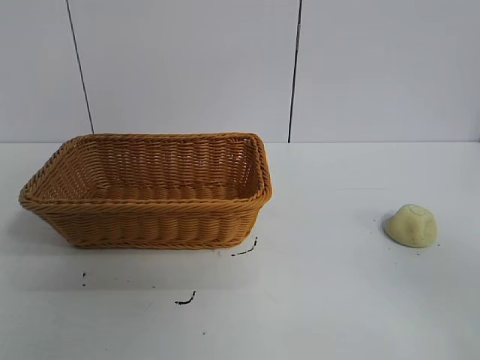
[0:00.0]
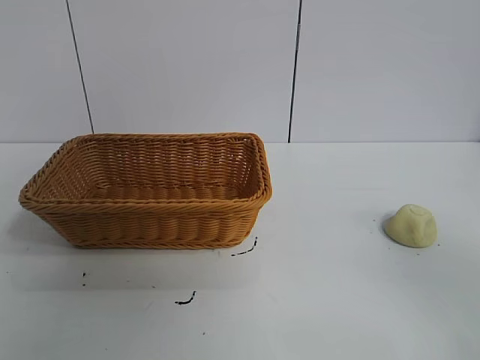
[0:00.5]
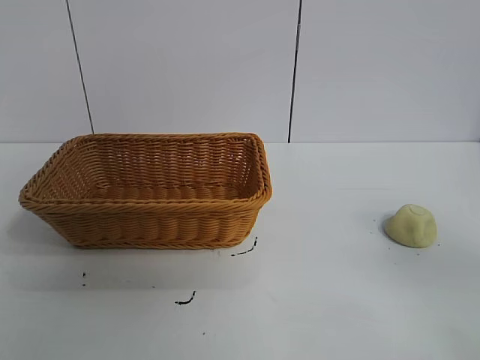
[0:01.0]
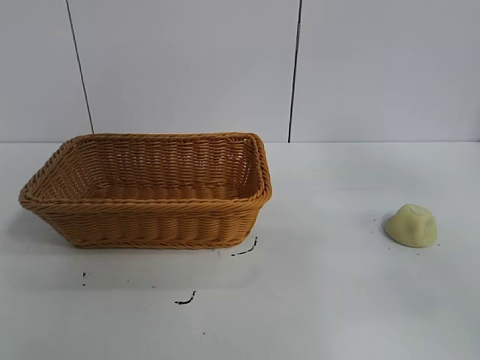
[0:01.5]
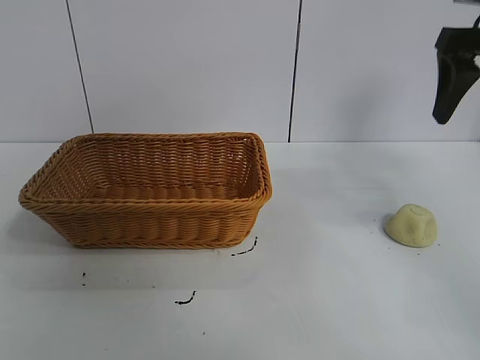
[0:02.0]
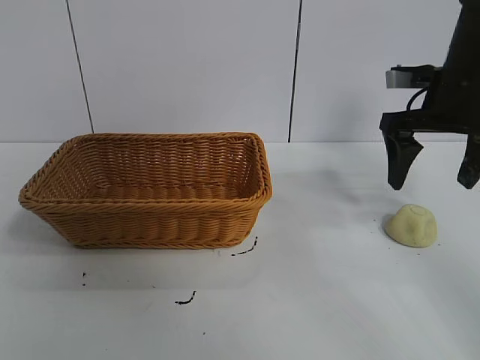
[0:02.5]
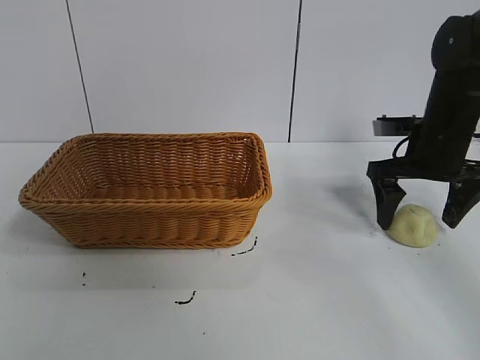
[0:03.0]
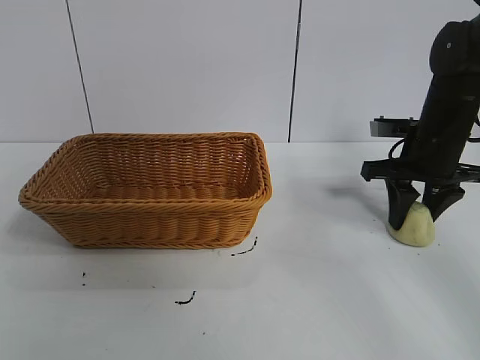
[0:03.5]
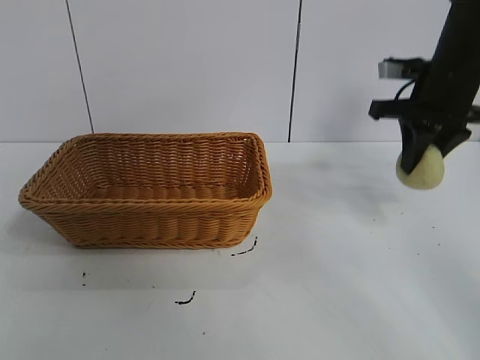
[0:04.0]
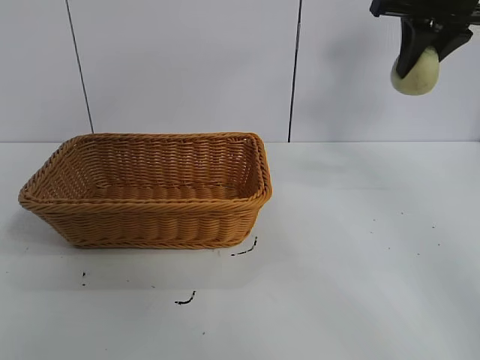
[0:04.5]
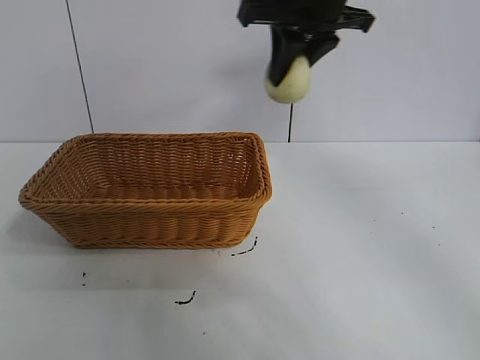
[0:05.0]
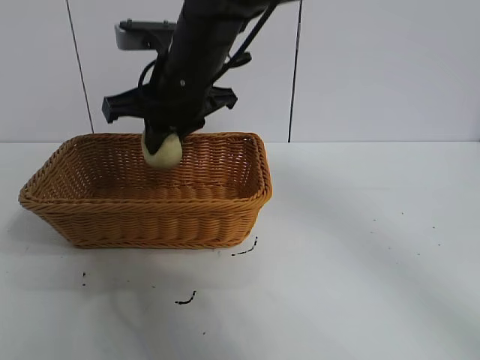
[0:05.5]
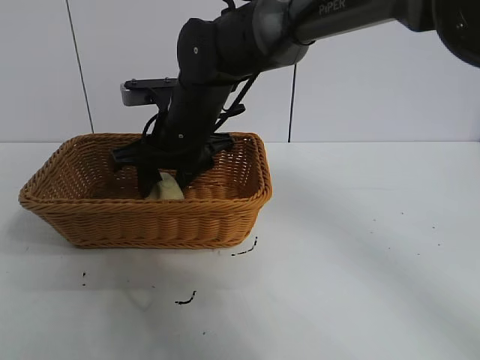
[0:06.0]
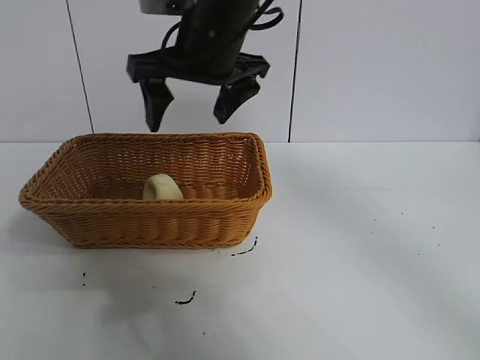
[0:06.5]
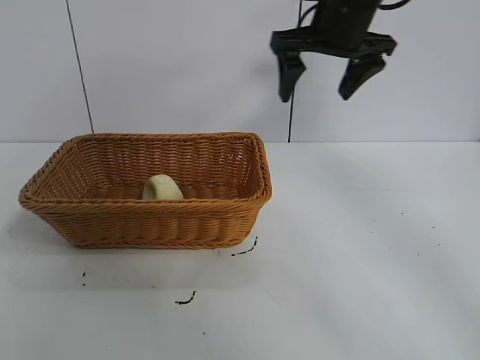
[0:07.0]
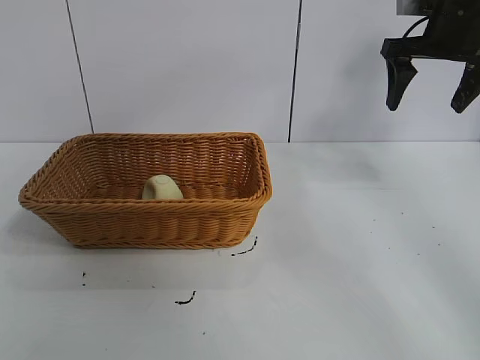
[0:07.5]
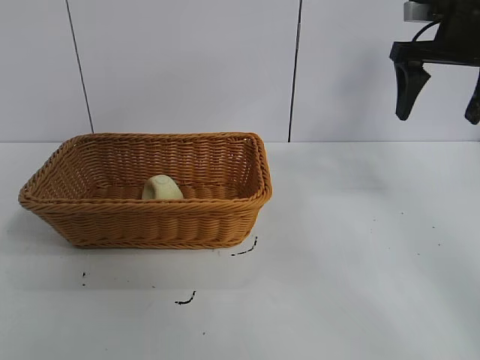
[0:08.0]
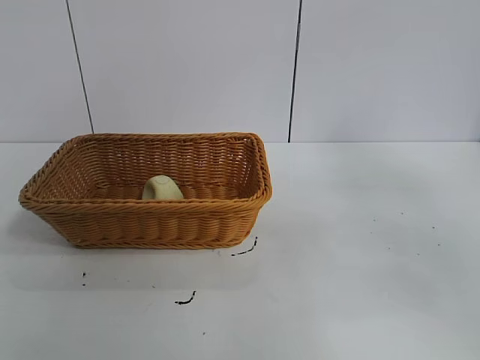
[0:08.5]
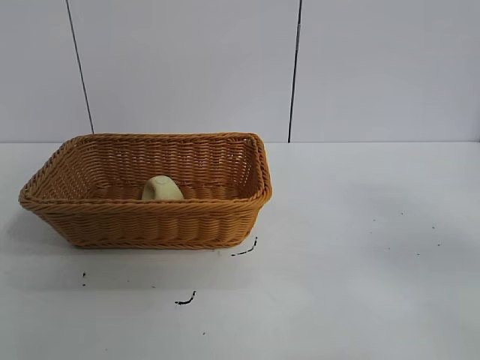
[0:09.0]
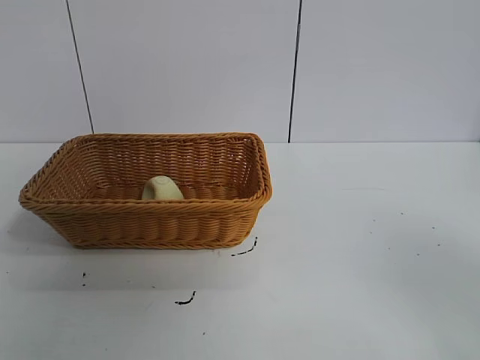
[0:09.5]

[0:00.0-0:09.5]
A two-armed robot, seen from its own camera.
Task of the whole recording: pick up the egg yolk pastry and put it into the basket.
Step, 0:01.0 to 0:03.5: Grasp egg yolk pastry with right gripper.
Step, 0:04.0 to 0:06.0: Place the egg yolk pastry in the basket with right gripper.

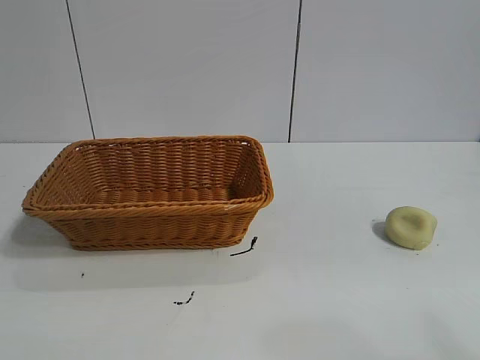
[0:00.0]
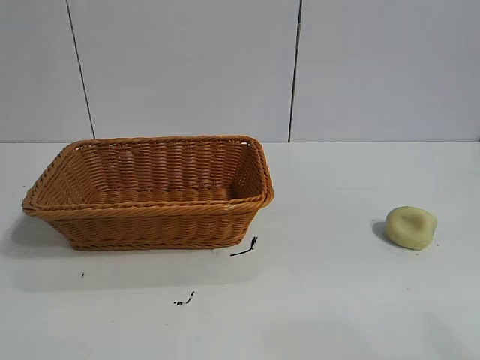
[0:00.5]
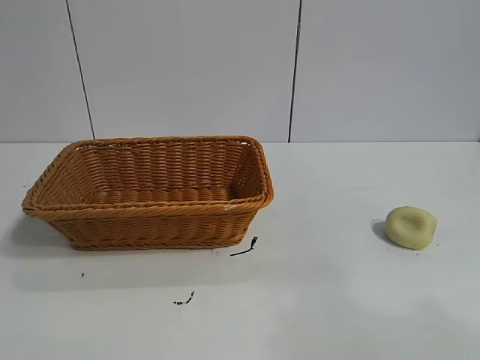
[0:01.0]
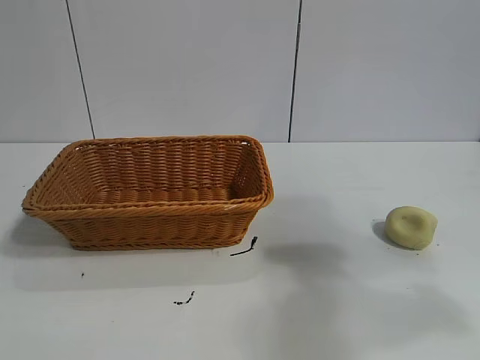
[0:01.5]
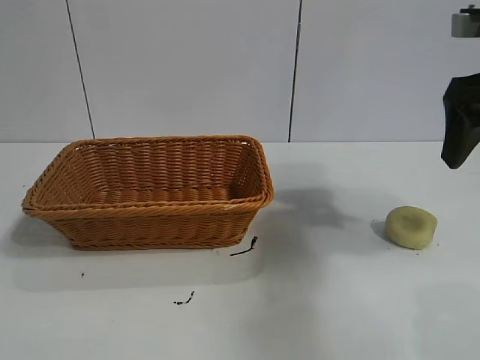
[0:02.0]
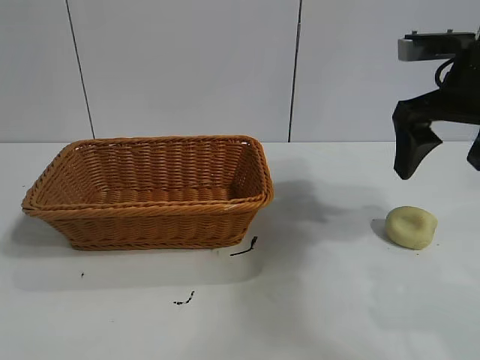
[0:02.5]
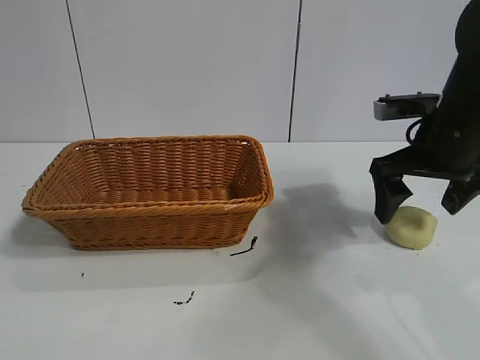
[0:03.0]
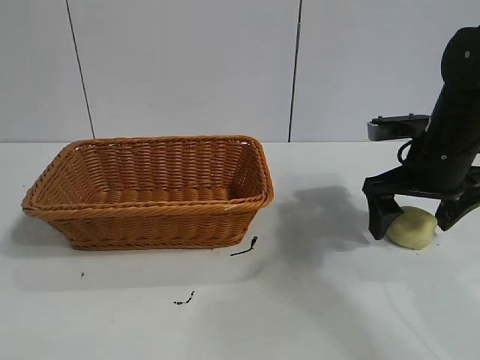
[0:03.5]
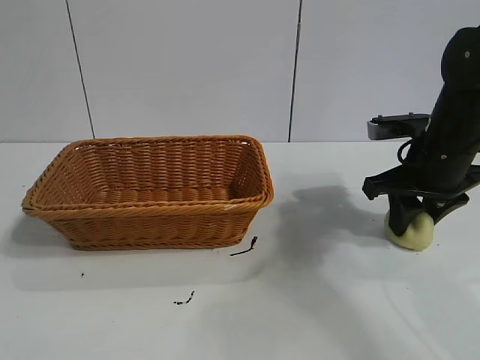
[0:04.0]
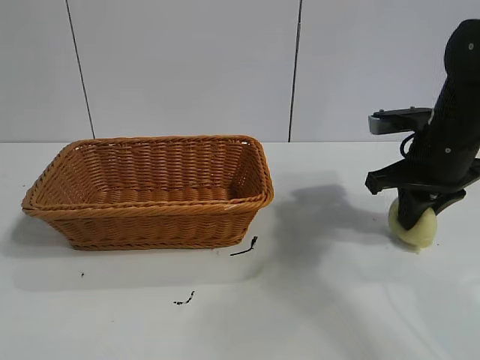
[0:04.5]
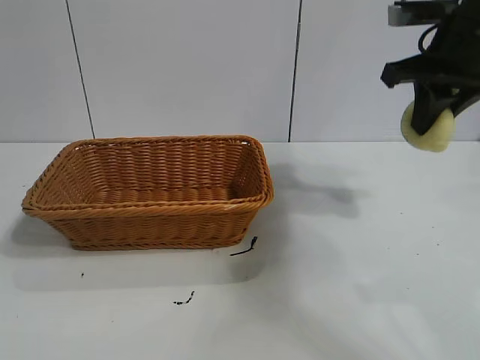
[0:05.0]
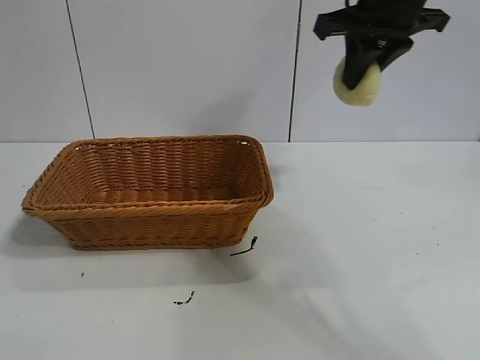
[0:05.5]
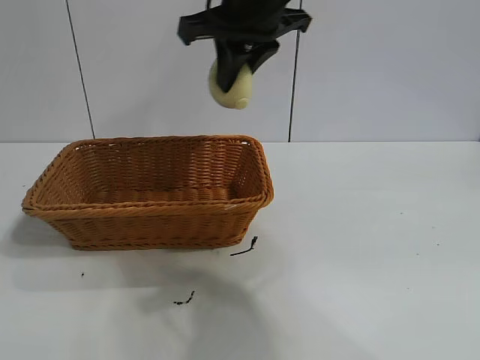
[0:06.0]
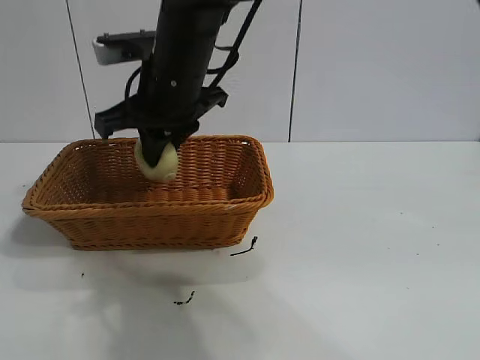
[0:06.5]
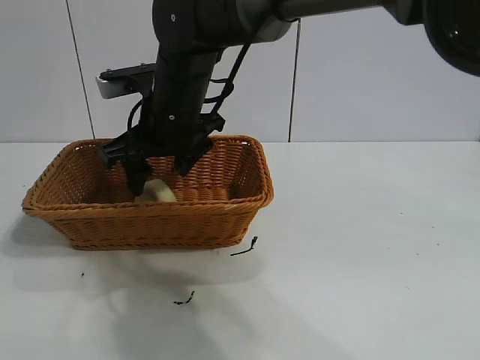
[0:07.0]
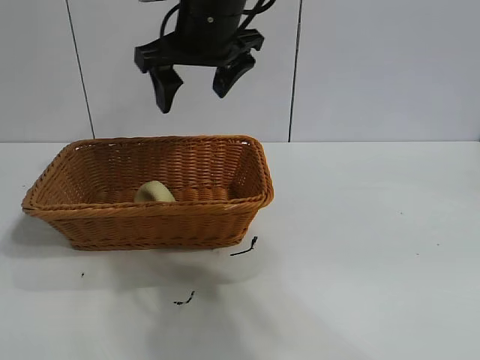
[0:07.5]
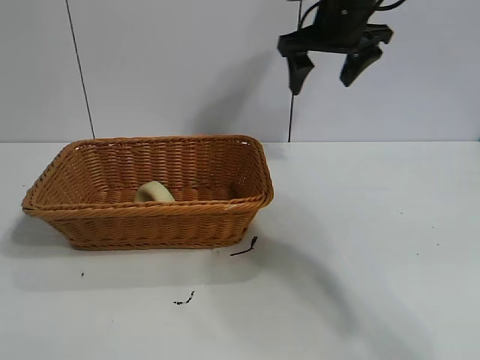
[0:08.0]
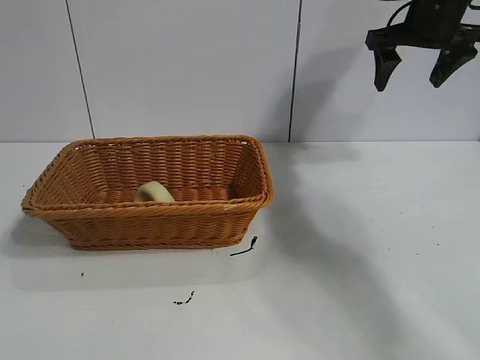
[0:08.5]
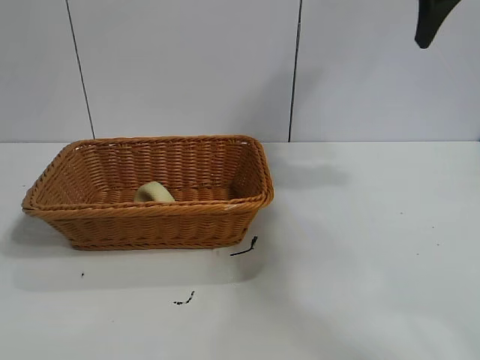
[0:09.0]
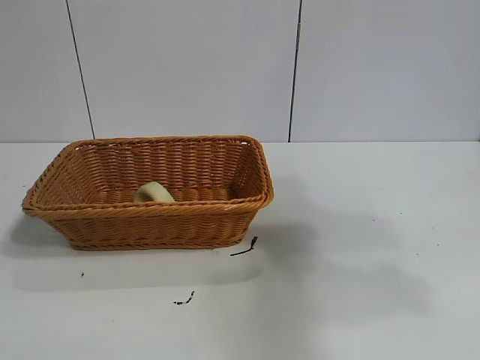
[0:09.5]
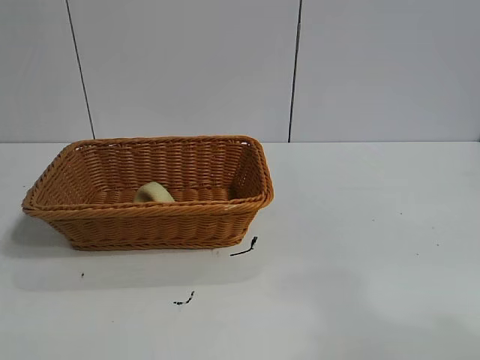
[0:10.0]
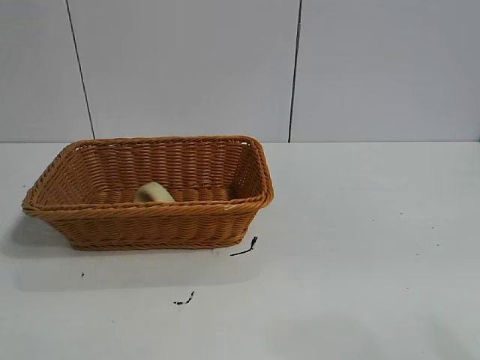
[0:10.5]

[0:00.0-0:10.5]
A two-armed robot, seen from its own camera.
Task of the whole recording: pick up the egg yolk pastry and put it into the basket.
Step, 0:01.0 to 0:04.0: Grasp egg yolk pastry with right gripper.
Step, 0:04.5 to 0:07.0: Place the egg yolk pastry in the basket with right gripper.
